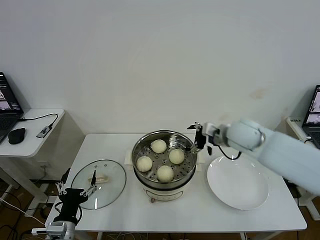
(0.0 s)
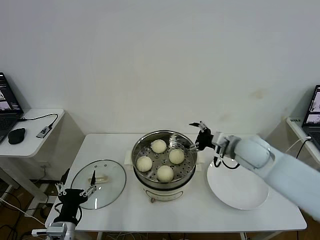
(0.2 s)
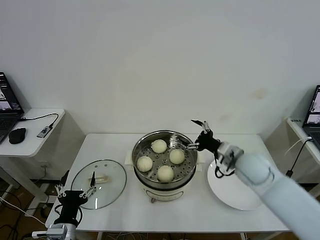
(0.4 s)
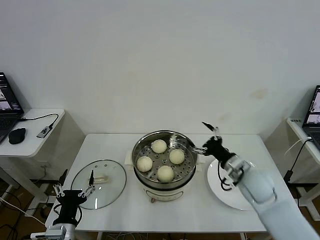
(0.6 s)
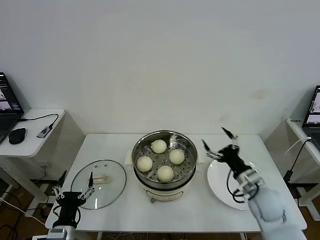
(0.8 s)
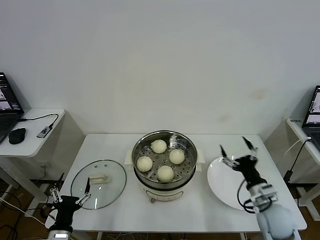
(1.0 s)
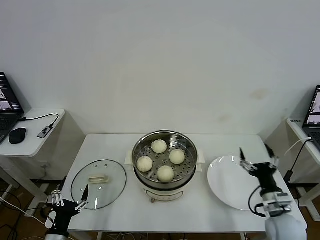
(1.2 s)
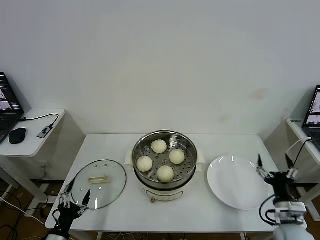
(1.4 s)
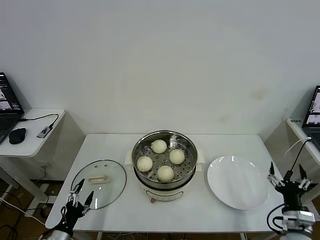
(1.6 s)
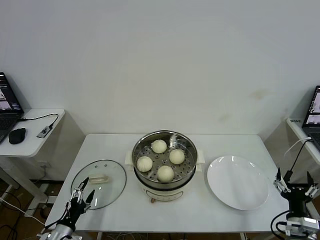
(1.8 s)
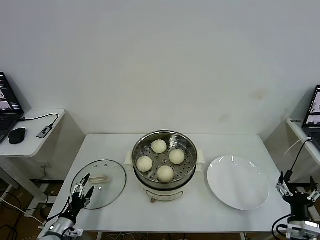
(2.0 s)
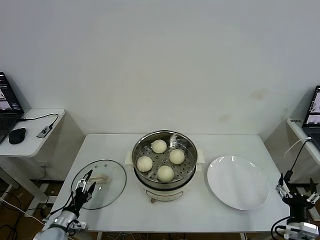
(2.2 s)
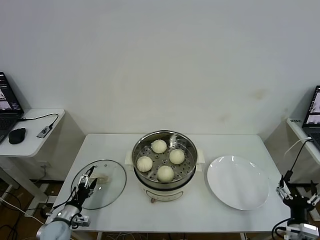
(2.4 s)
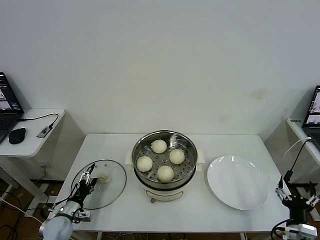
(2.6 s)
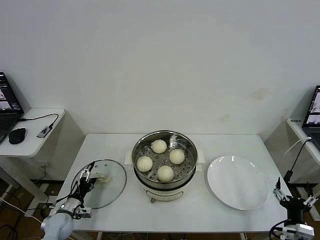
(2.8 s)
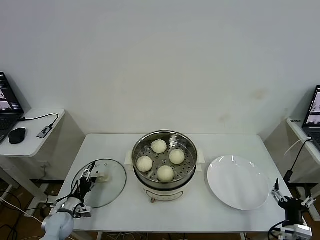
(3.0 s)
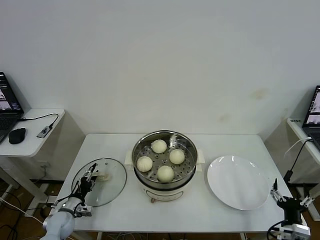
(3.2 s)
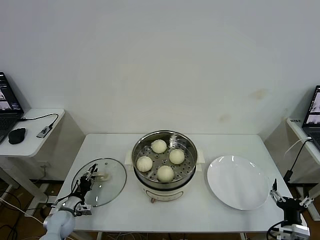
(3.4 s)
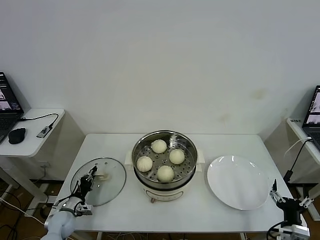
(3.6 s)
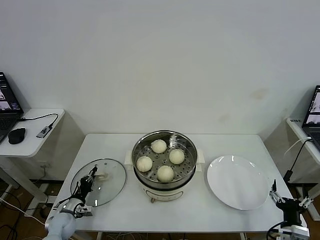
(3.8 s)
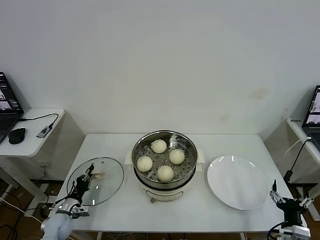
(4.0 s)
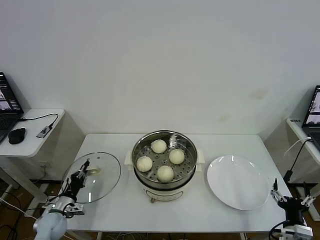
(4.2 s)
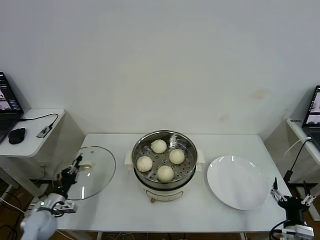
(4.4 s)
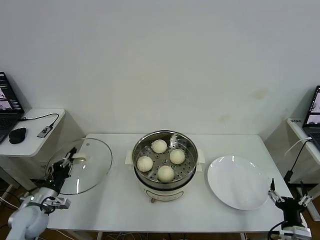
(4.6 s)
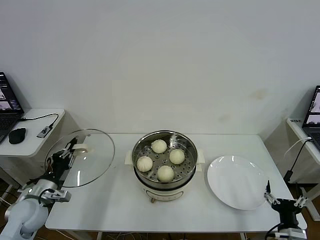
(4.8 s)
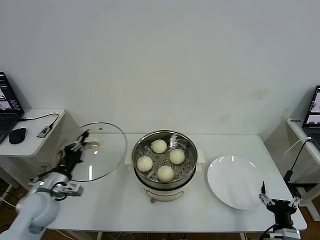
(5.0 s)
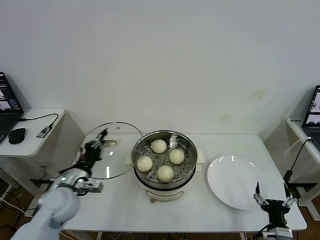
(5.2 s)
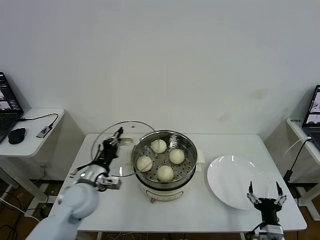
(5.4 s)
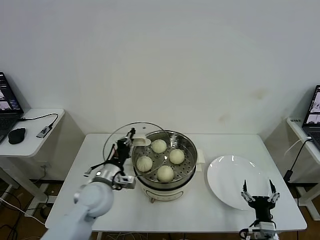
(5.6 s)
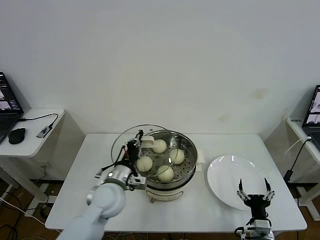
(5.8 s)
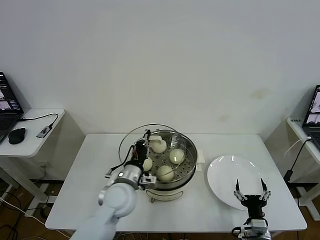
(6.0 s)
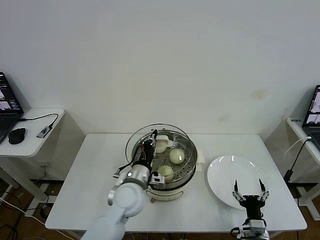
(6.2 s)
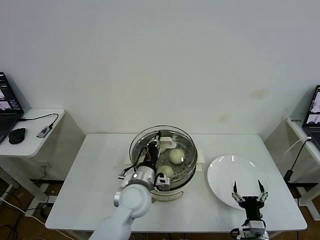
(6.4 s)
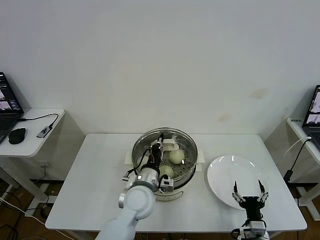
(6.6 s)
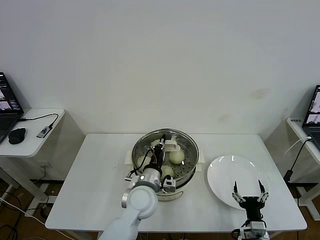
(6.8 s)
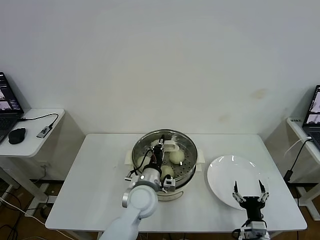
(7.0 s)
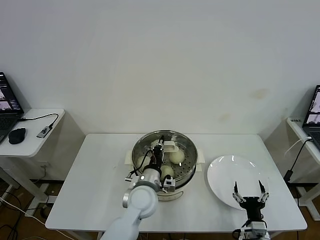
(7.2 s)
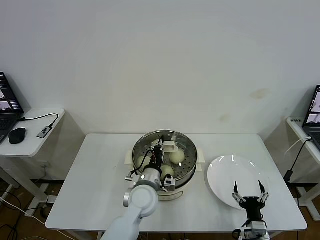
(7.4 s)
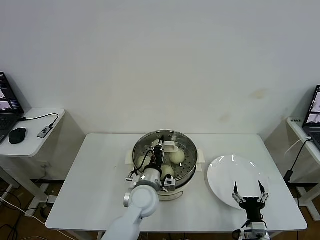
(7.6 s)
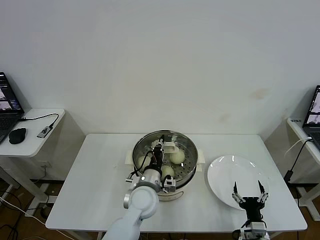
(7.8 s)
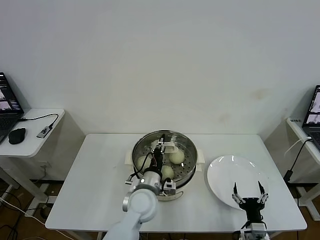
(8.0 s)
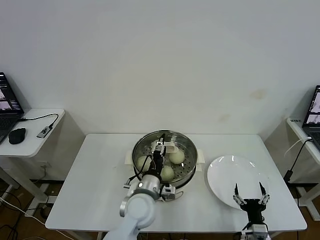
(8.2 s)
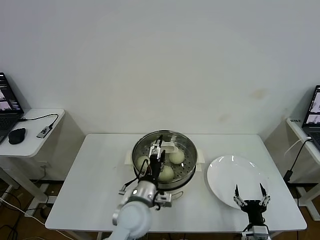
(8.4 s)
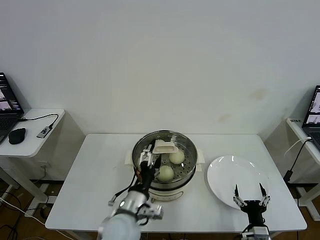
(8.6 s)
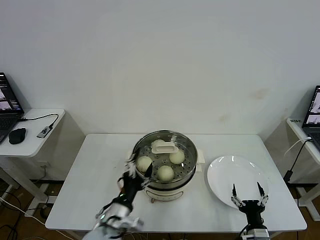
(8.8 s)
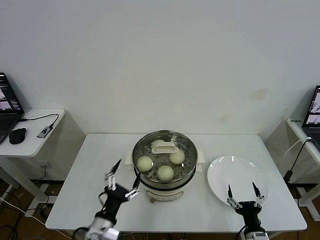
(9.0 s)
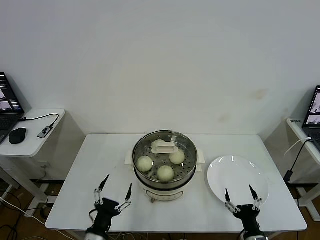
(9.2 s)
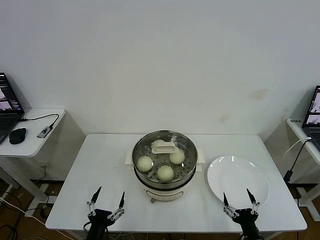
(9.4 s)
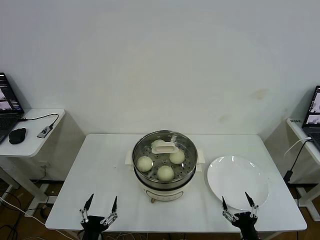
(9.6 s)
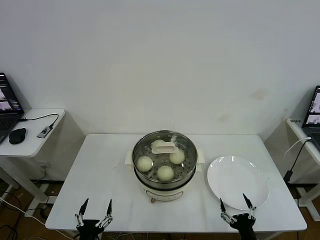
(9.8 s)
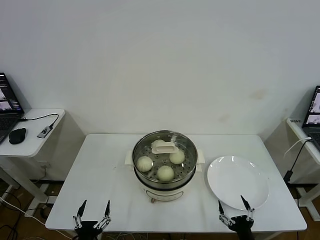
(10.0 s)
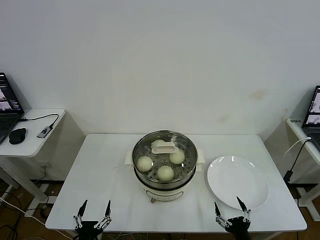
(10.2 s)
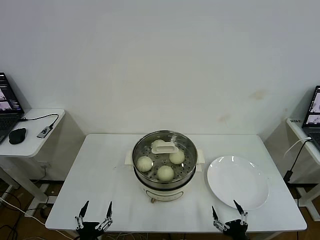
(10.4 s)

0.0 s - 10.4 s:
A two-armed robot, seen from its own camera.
Task of the whole recording: take steamed baozi put them in steamer then cover it.
Step, 0.0 s - 3.8 s: Grasp the pot lid with left gripper.
Step, 4.0 s - 8.2 s: Place the pot lid on the steamer with left gripper.
0.0 s - 1.4 s: The left gripper travels downward and to the left by roughly 10 cm; the right gripper travels backward, downward and to the right by about 35 cm.
1.4 s - 3.0 s: The left gripper heads forward and downward, covering about 15 cm, while the right gripper travels backward by about 5 cm.
3.0 s - 4.4 s: The left gripper is displaced upward by approximately 5 cm, and closes up.
4.4 s - 6.0 s: The right gripper heads to the left, covering some 5 cm, while the left gripper travels to the right and upward by some 30 cm.
6.0 s - 7.4 s: The left gripper shifts about 5 cm to the right.
7.4 s - 9.0 s: The left gripper shifts approximately 20 cm backward and to the left, and opens its fingers.
9.0 s - 10.4 s: The right gripper travels backward by approximately 5 cm, while the left gripper shifts about 15 cm backward, downward and to the left.

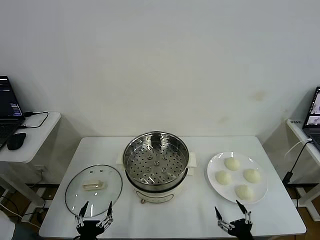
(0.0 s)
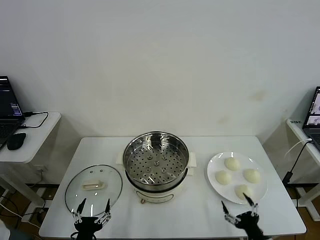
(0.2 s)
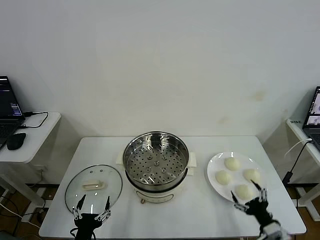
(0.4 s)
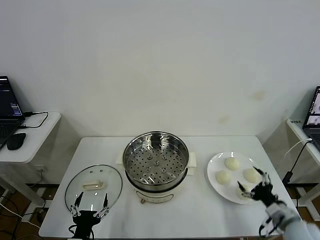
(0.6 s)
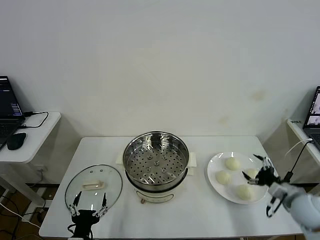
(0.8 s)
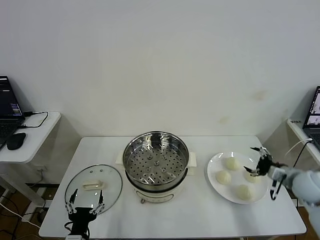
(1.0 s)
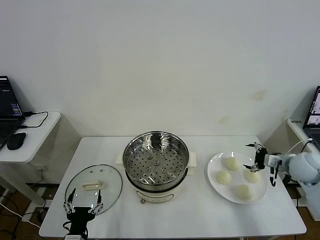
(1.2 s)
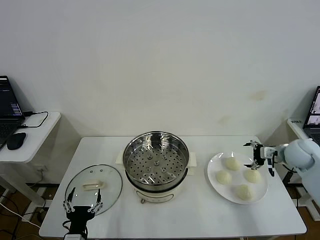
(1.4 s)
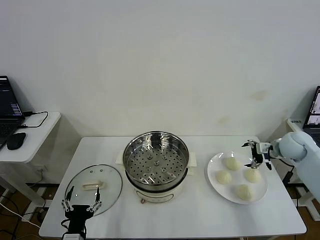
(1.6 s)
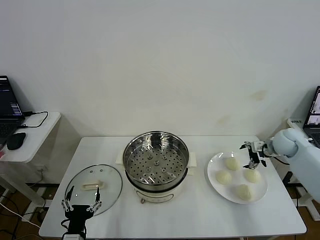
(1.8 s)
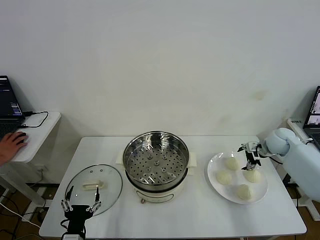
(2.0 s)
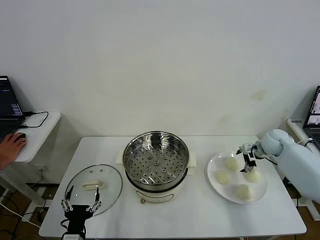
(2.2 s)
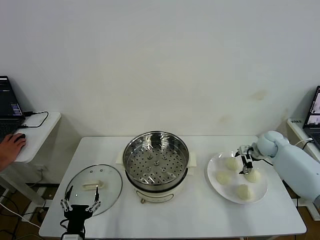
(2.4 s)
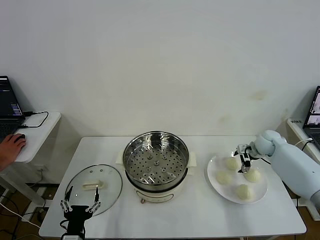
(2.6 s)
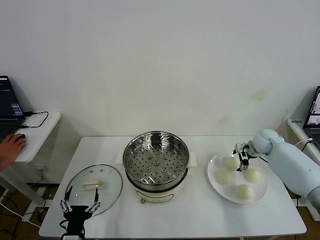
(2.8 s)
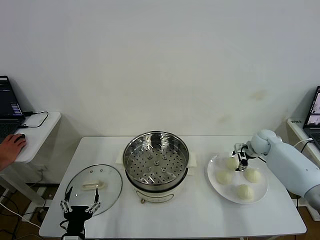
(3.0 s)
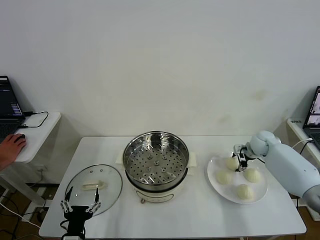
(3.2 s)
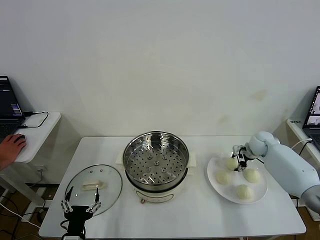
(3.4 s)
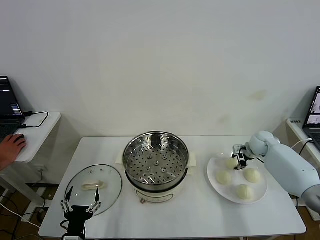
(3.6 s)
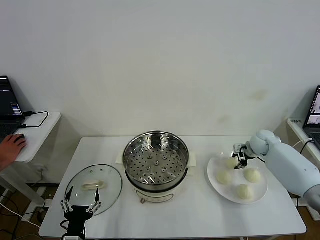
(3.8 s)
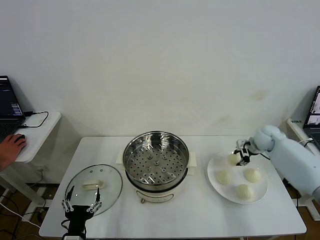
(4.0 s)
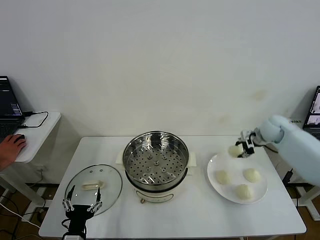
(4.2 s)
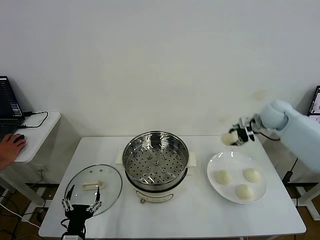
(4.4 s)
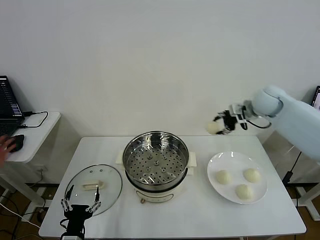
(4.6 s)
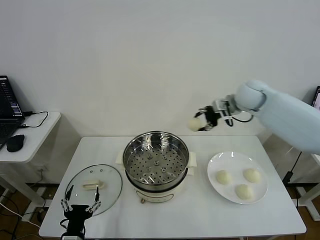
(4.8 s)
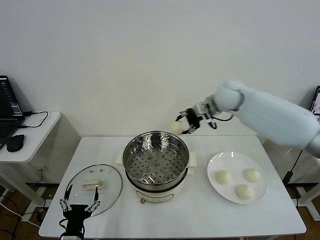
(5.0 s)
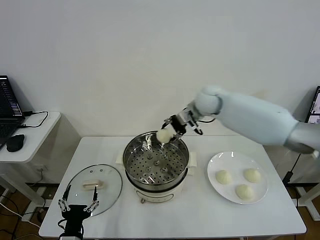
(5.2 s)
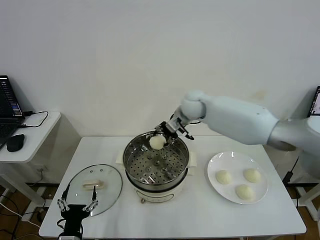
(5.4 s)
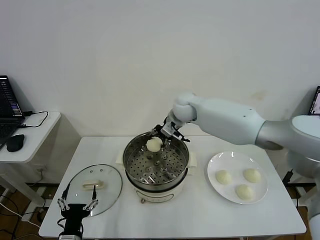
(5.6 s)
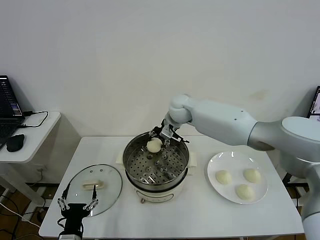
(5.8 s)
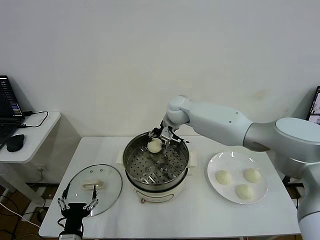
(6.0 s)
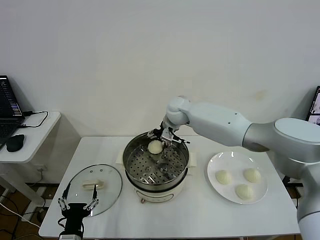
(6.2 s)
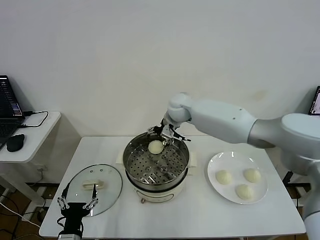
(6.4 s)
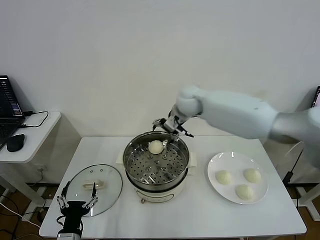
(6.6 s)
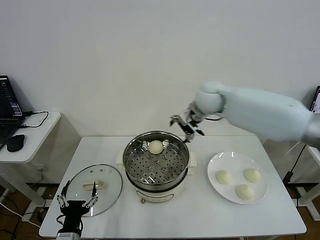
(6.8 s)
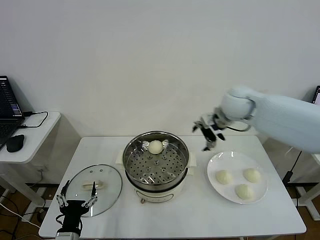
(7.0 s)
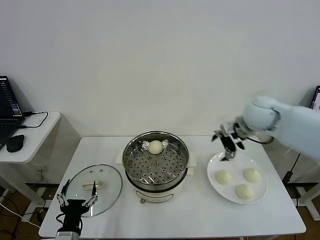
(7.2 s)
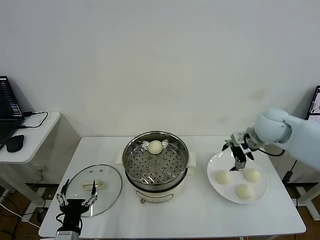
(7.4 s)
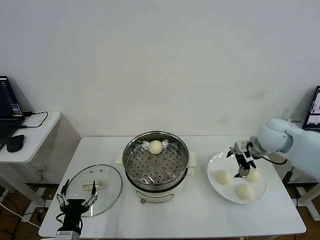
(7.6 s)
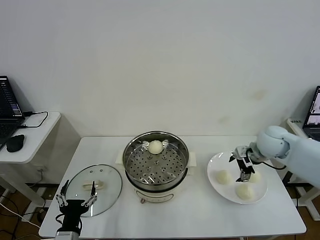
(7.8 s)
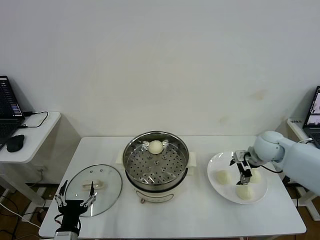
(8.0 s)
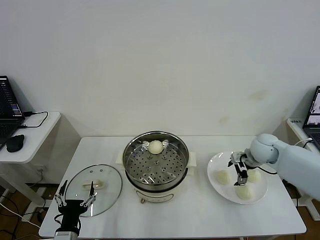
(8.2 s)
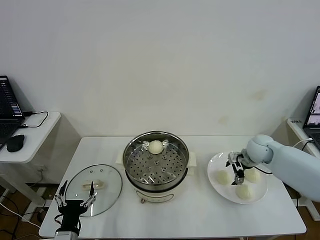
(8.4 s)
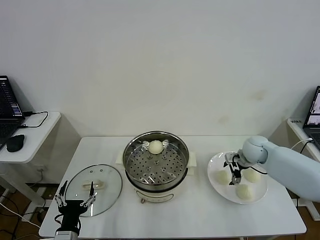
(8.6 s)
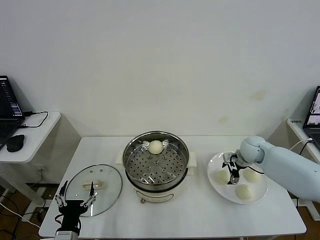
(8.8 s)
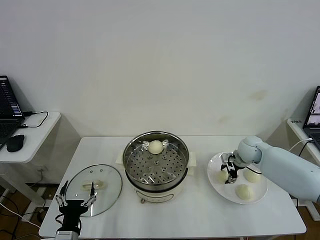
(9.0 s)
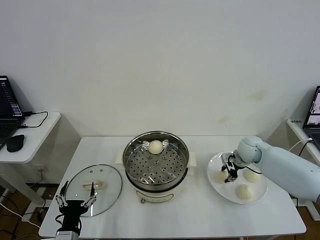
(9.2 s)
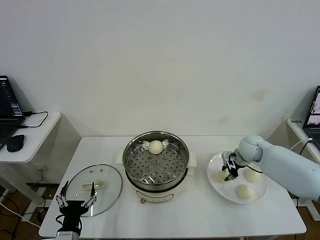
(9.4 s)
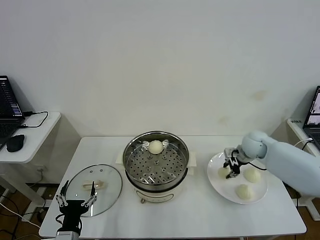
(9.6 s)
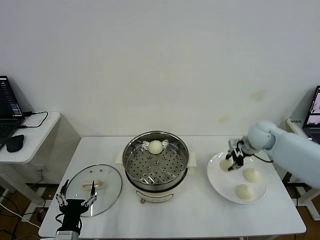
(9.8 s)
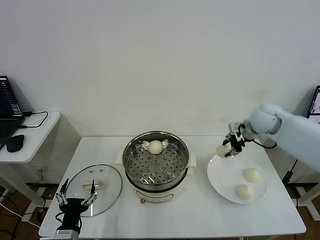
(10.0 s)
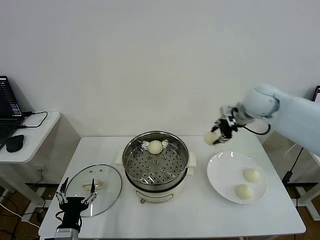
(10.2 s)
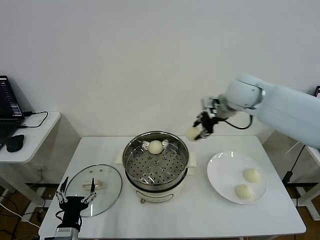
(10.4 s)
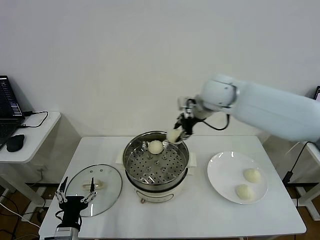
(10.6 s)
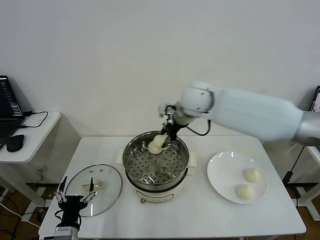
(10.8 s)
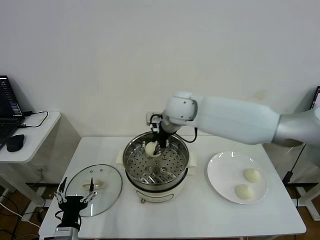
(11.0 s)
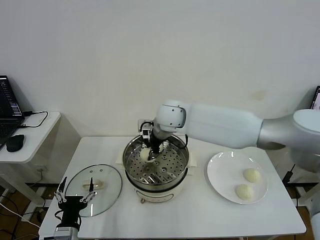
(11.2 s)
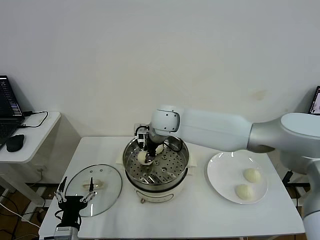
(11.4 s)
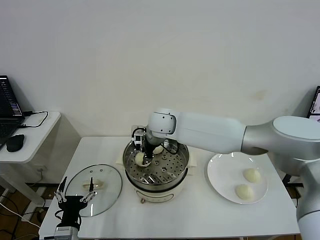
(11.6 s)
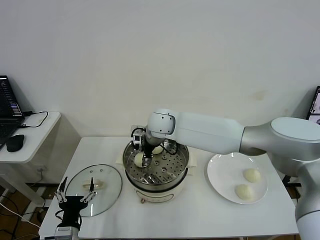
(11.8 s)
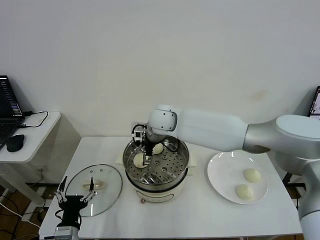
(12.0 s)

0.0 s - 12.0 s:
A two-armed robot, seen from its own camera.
Task of the whole recording: take steamed baozi put them in steamer then cover it.
Step, 0.0 s - 3.4 s: Grasp the baozi in the plate with right gripper.
Step, 3.6 s - 6.4 s: Place the baozi on the steamer with right gripper.
Step, 6.6 s - 9.2 s: Grasp the baozi in the plate with right gripper.
1.6 s - 3.0 s: The right gripper moves downward and forward, some 10 cm.
3.0 s - 4.4 s: The right gripper is displaced upward by about 20 cm, and closes its fingers.
4.4 s - 6.0 s: The right gripper shifts some 30 cm to the left.
6.0 s - 7.6 s: The right gripper moves to the right and backward, some 30 cm, and opens its fingers.
7.6 s - 9.0 s: The right gripper travels downward by about 10 cm, and closes its fingers.
9.0 s - 10.4 s: The right gripper heads upward and to the left, covering approximately 30 cm.
10.4 s - 12.0 s: The right gripper is displaced to the left and downward by approximately 20 cm, and opens its fingers.
